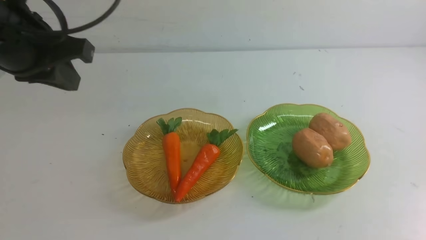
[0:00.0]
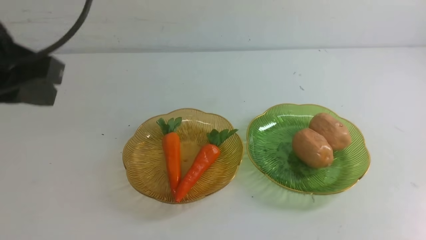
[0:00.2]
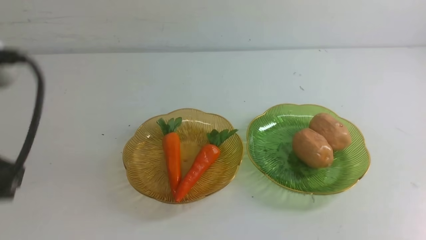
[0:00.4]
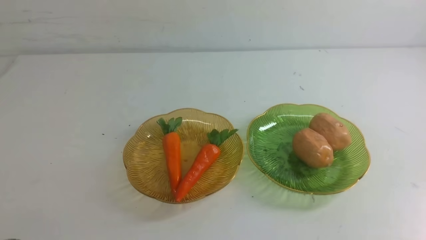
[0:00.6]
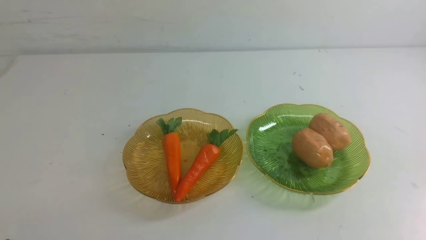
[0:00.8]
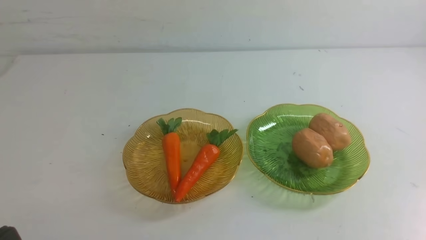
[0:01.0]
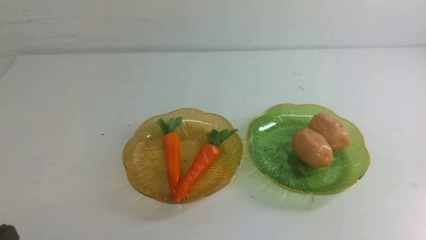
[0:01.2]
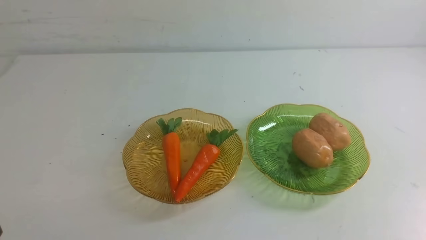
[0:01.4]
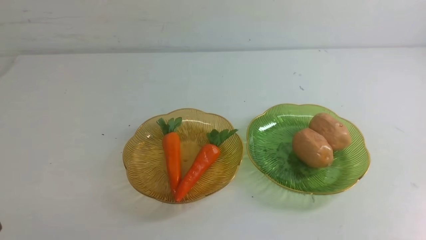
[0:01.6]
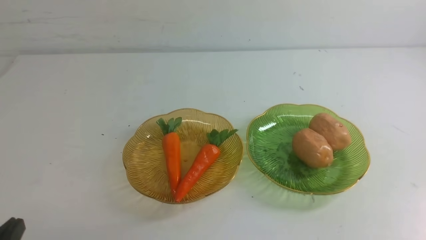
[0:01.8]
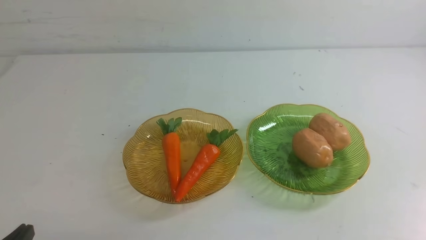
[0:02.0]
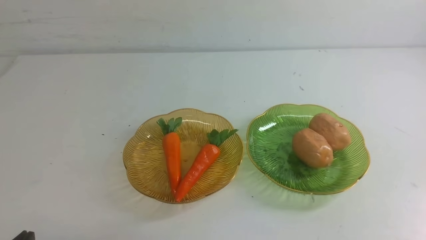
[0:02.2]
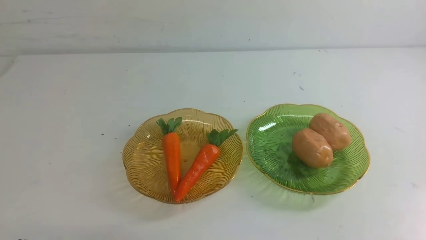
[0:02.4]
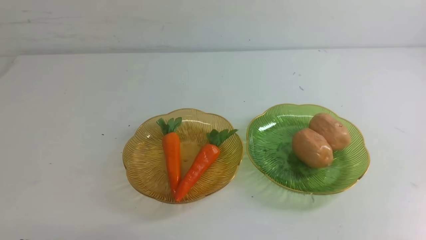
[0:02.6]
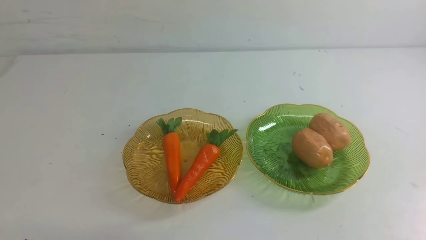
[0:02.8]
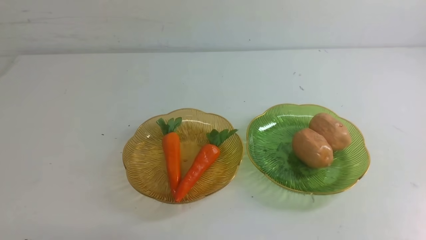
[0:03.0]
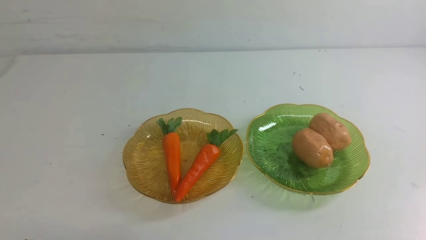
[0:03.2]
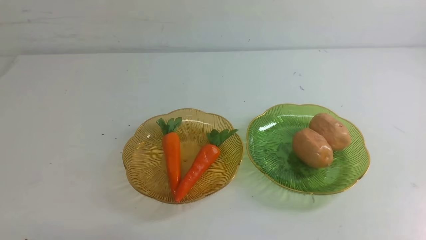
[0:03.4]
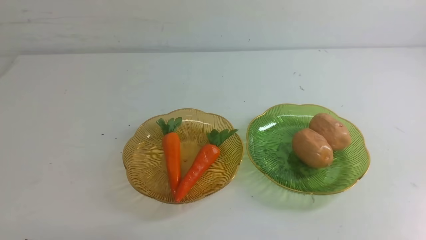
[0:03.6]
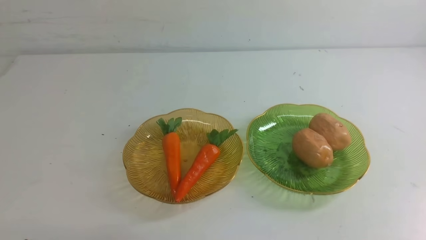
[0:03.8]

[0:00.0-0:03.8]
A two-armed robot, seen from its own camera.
0:00.0 to 0:01.2: The left gripper goes roughly 30 cm backward and downward.
0:02.6 to 0:03.8: The two grippers keep their place.
